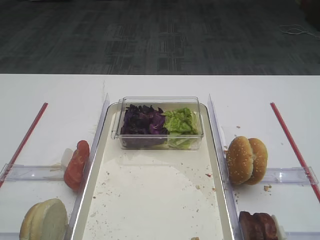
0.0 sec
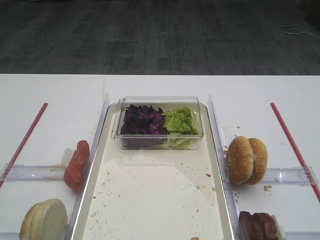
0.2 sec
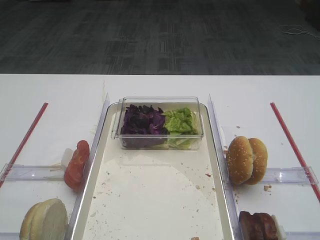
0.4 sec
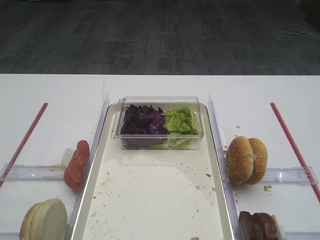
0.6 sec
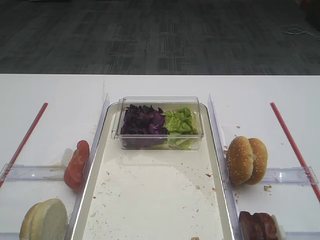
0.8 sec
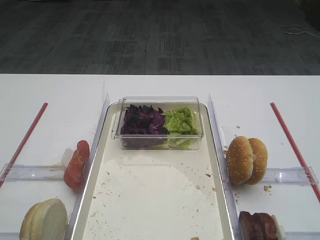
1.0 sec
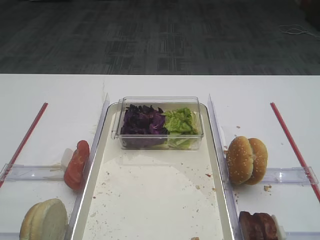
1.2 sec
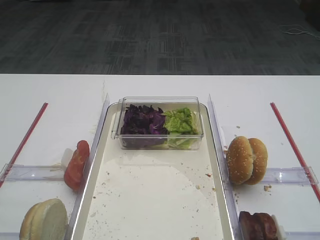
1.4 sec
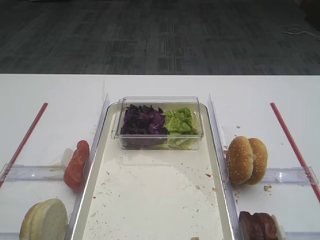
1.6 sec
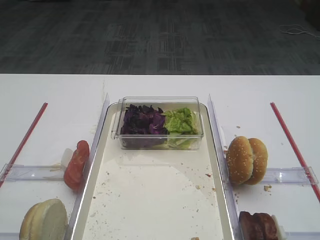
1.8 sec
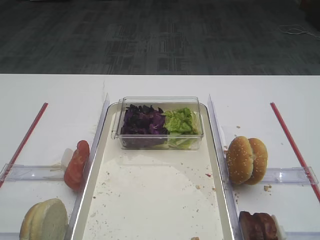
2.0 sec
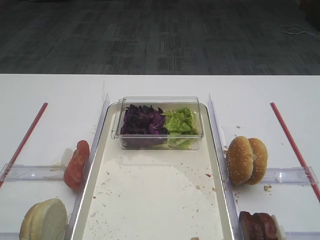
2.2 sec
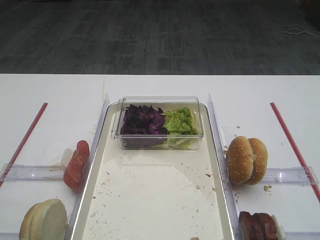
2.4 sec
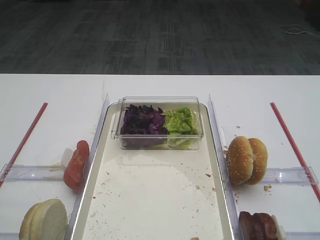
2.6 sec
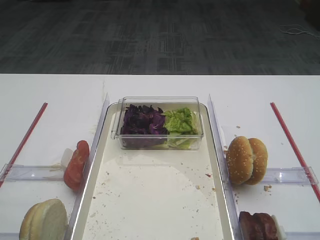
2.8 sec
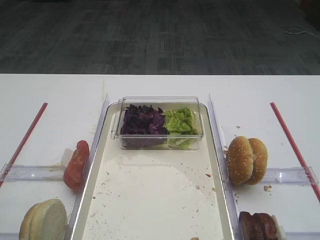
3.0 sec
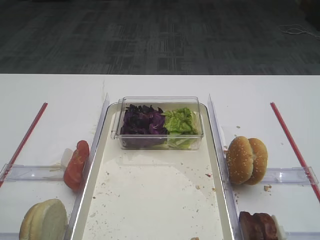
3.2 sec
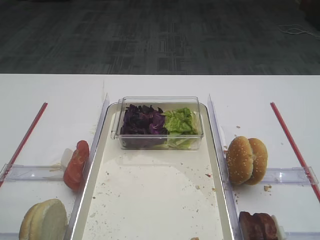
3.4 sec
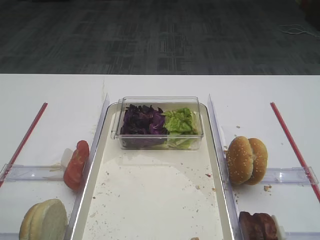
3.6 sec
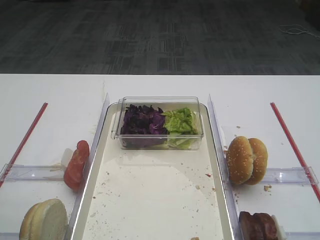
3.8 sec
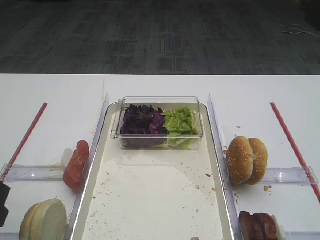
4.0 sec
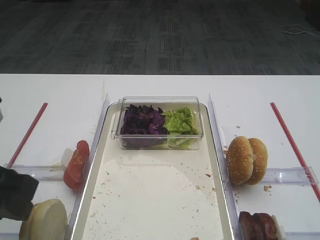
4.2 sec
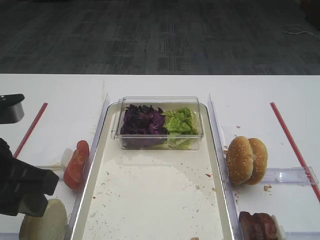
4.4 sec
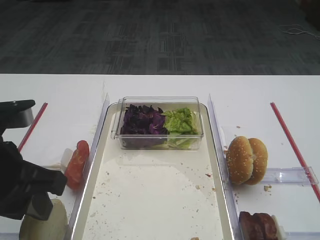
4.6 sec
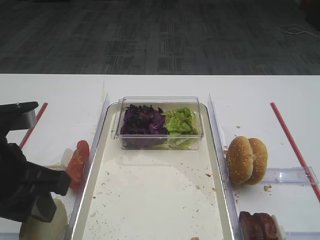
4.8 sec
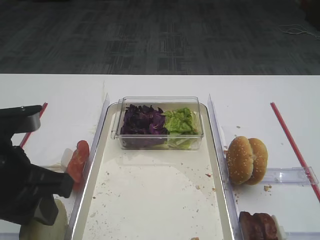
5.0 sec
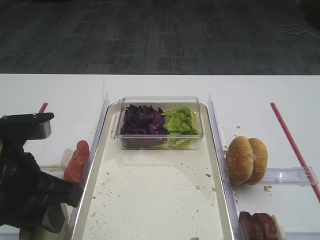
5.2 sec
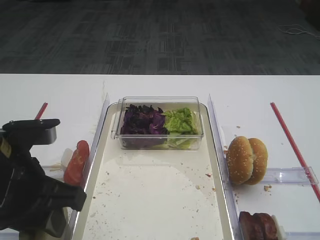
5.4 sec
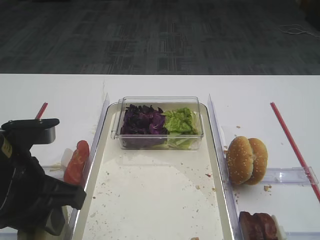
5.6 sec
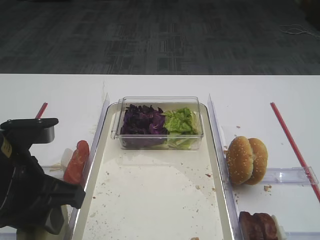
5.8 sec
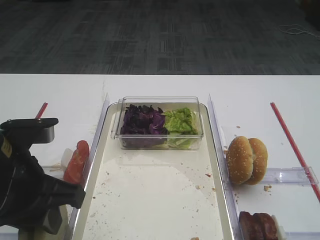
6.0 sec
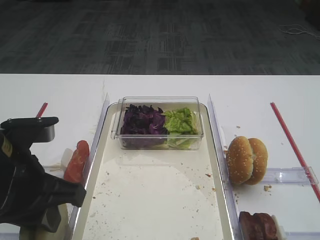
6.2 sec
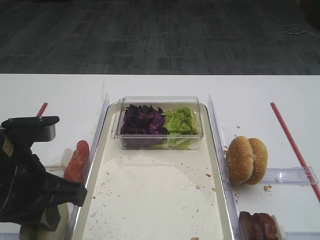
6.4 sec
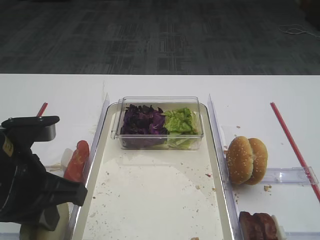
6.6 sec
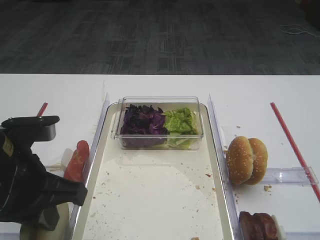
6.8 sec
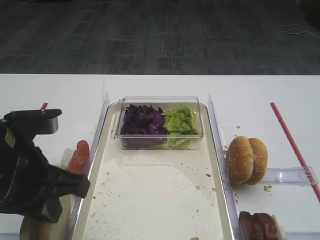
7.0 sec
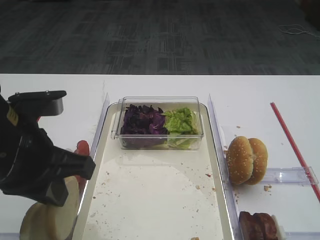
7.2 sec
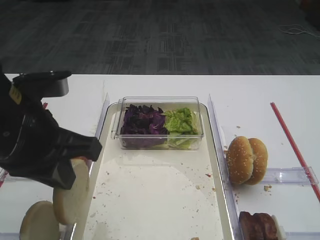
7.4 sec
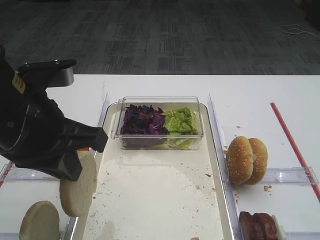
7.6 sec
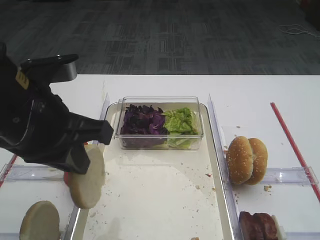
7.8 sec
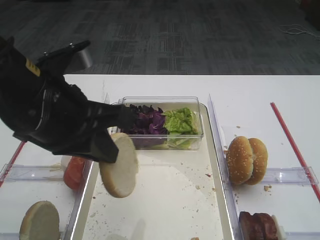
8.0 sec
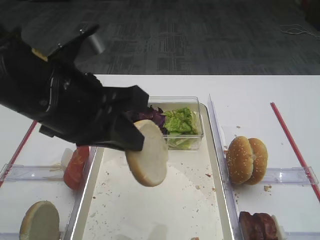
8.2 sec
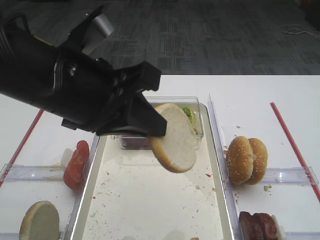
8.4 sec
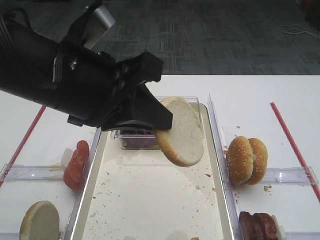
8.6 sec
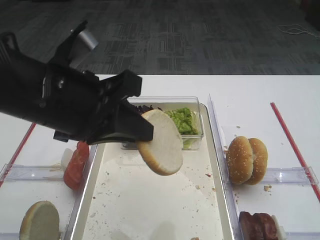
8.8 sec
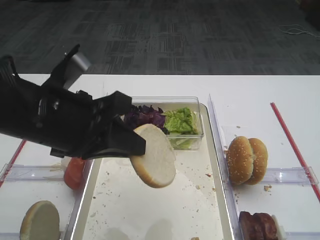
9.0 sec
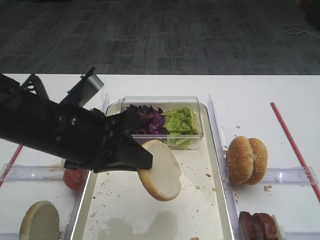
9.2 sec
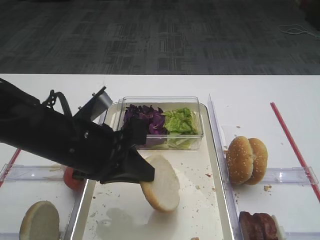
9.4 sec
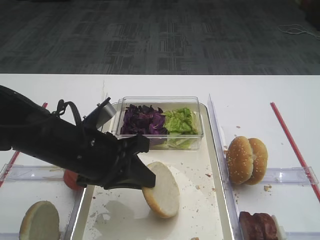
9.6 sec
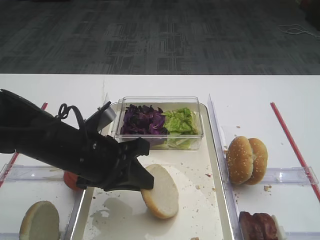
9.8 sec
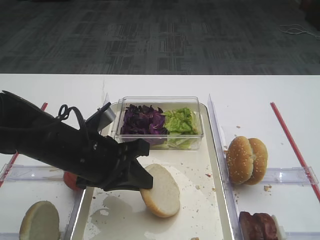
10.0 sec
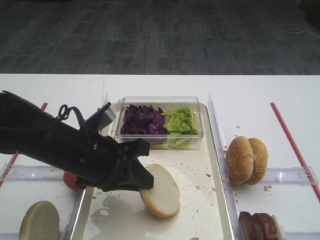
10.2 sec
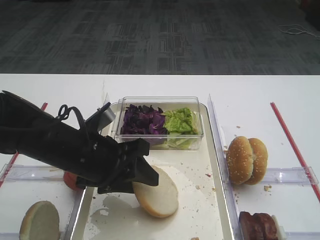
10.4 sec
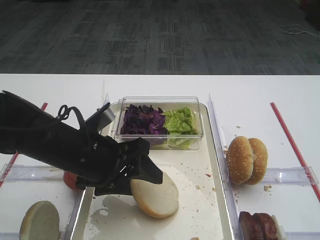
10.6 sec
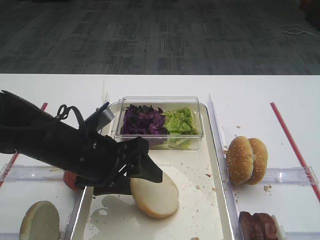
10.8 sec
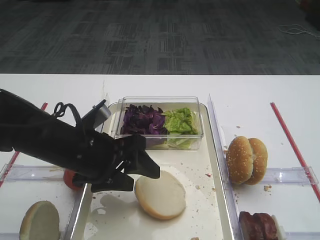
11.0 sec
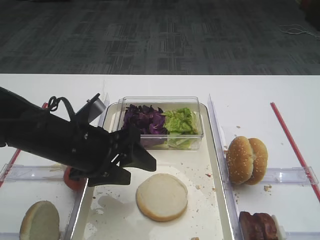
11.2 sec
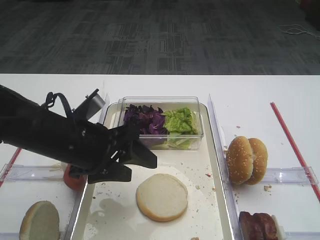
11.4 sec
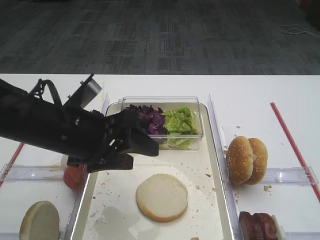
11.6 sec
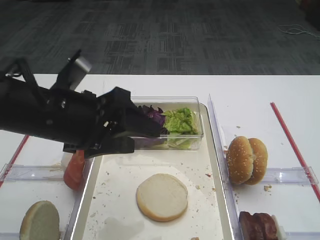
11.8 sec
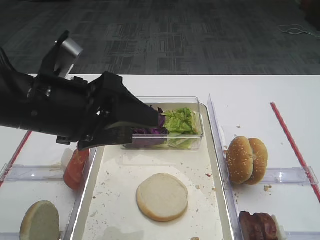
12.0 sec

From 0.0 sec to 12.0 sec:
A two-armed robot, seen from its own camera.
Step, from 0.0 sec to 7.2 sec: Pick up the bread slice with the left gripper.
Step, from 7.6 sec to 11.4 sec: Place the bread slice on the tray with the left gripper.
From 3.0 sec to 4.4 sec: The left gripper is displaced to the right and forward by approximately 10 cm.
From 4.4 sec to 6.0 sec: The grippers make only small movements.
From 6.0 sec to 7.6 sec: The left gripper shifts approximately 5 cm upward, and closes.
From 9.0 sec to 10.4 sec: The left gripper moves downward, about 10 cm, and opens.
From 10.4 sec to 12.0 sec: The left gripper goes about 10 cm upward.

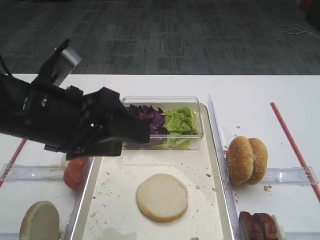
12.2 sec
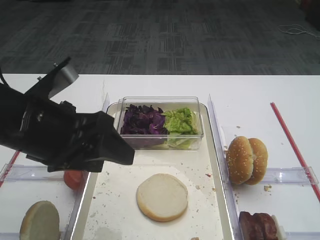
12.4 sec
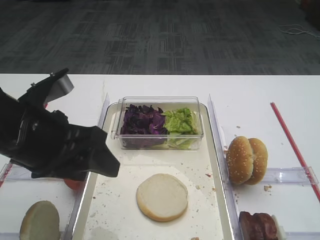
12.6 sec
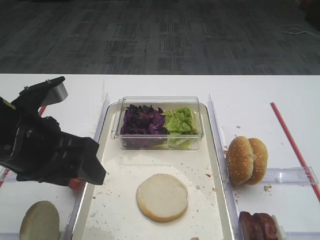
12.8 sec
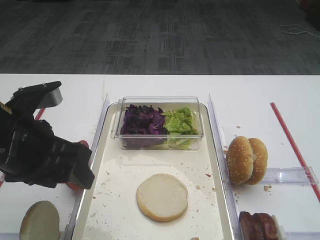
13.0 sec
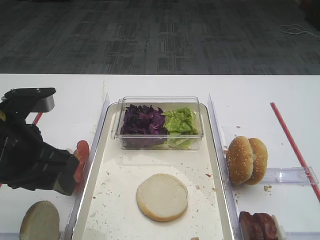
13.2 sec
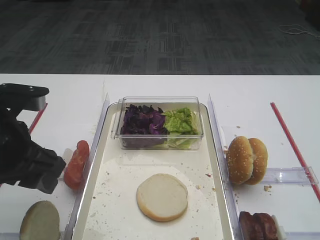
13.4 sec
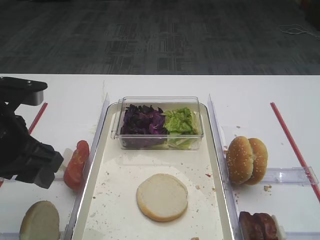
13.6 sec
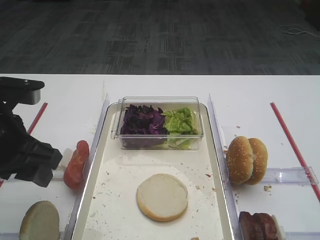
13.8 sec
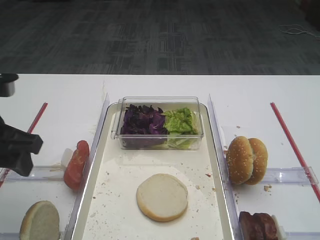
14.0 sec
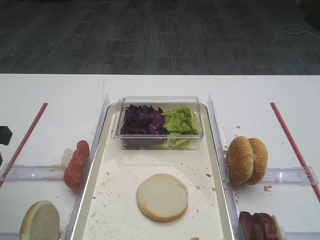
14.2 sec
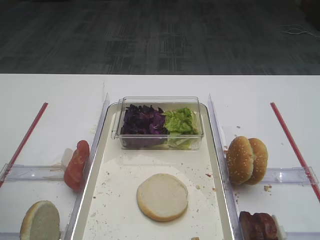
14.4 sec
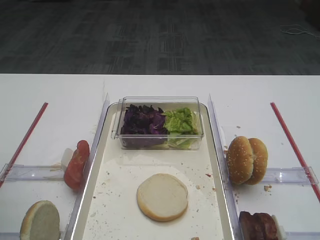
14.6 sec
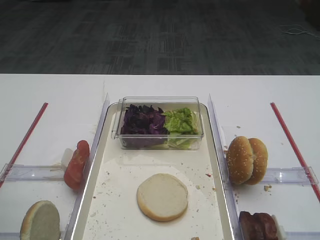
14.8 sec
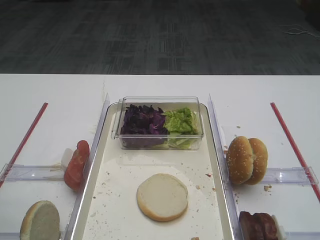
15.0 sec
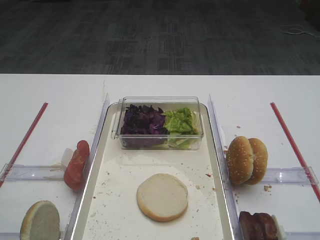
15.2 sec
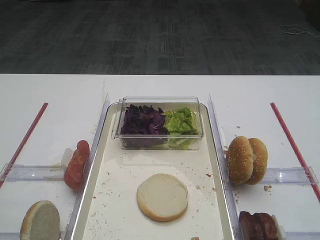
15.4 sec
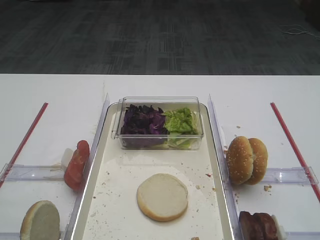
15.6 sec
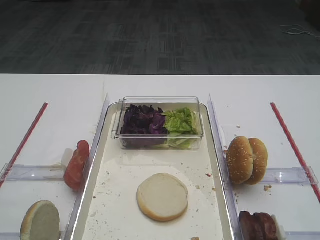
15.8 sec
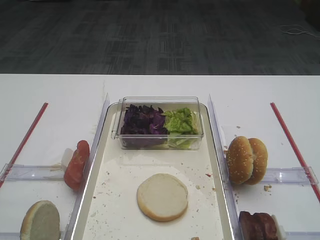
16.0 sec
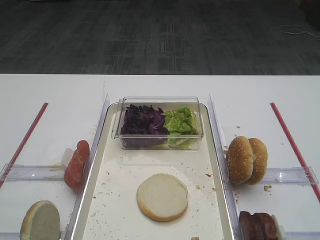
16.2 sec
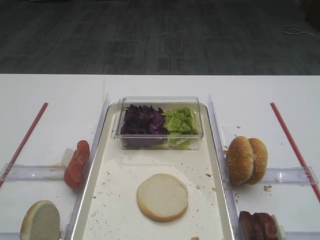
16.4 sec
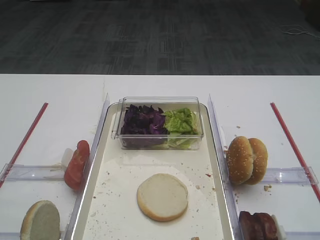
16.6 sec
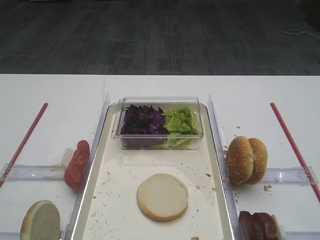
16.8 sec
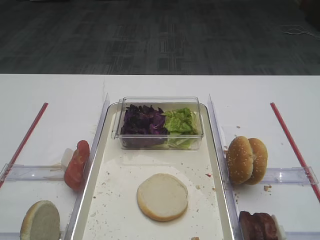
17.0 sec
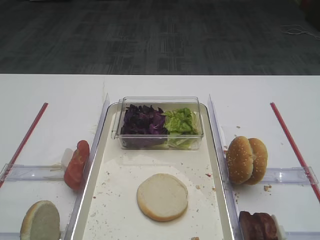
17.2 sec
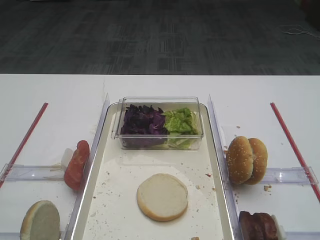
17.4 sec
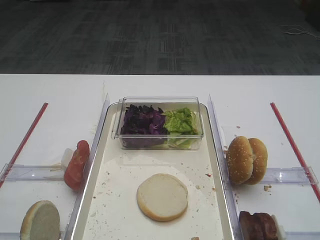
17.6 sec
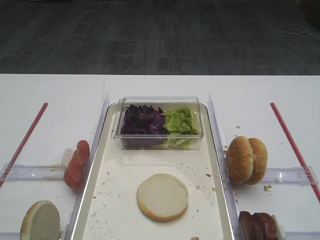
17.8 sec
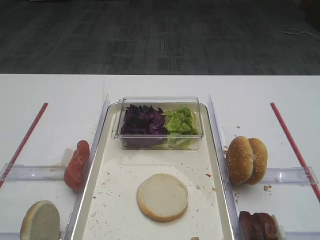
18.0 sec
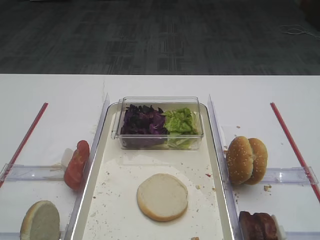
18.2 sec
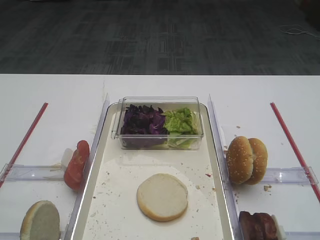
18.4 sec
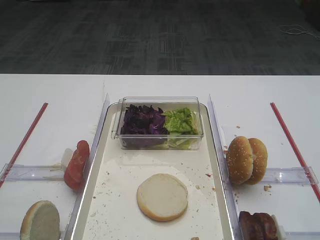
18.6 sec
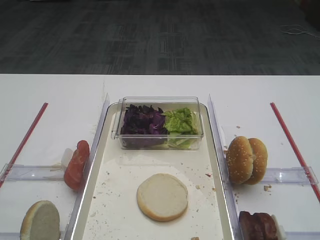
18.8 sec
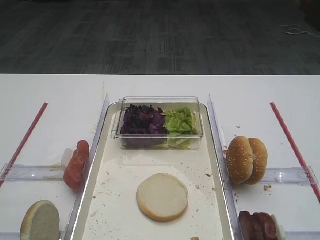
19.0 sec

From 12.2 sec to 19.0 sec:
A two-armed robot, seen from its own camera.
From 12.2 sec to 13.6 sec: The left gripper is displaced to the left by roughly 5 cm.
From 13.6 sec to 15.0 sec: The left gripper travels to the left and backward by about 10 cm.
From 17.6 sec to 19.0 sec: Both grippers stay put.

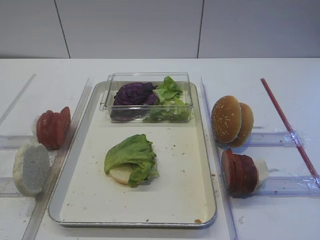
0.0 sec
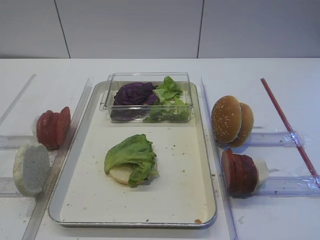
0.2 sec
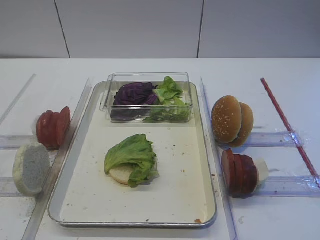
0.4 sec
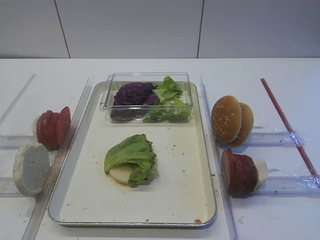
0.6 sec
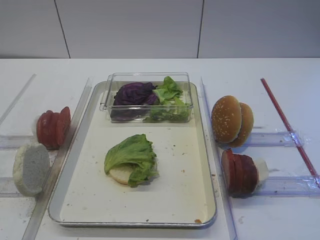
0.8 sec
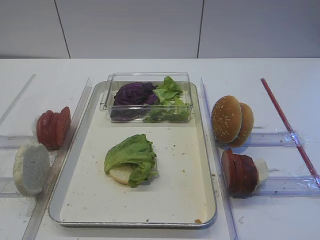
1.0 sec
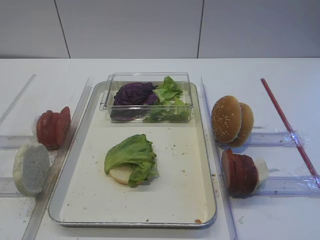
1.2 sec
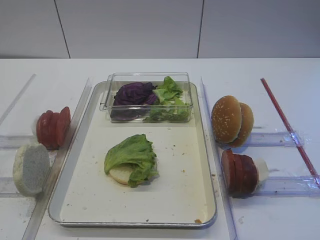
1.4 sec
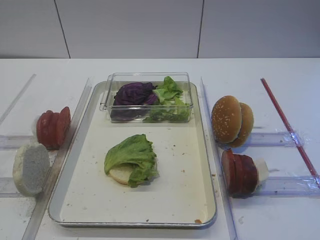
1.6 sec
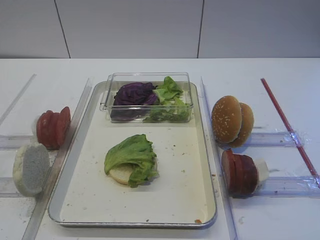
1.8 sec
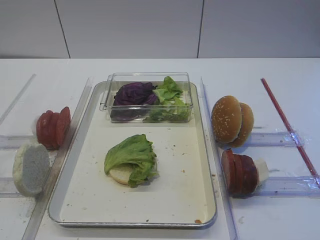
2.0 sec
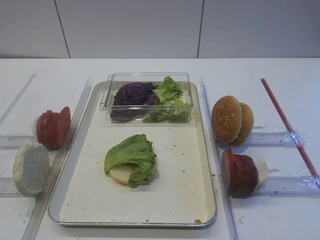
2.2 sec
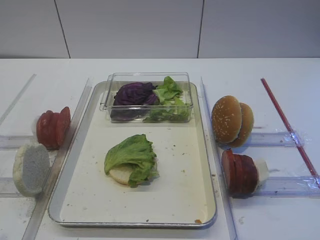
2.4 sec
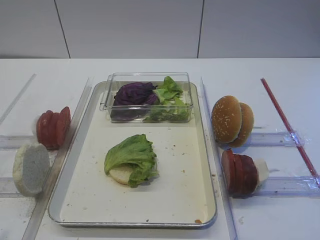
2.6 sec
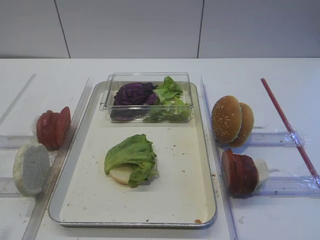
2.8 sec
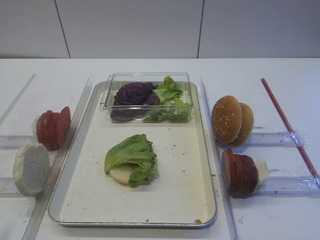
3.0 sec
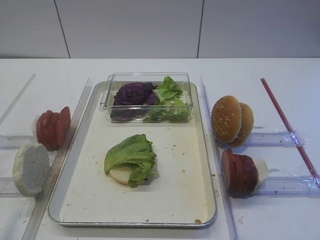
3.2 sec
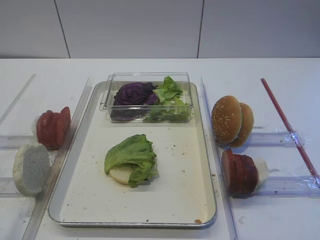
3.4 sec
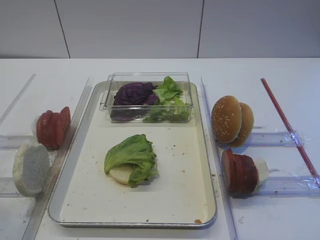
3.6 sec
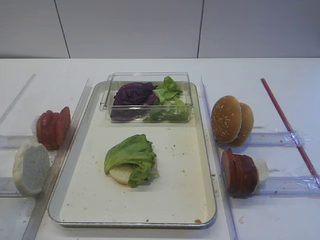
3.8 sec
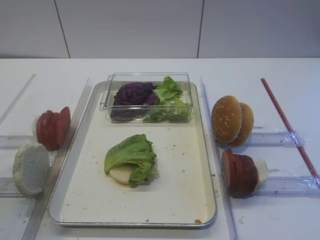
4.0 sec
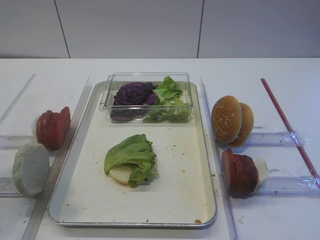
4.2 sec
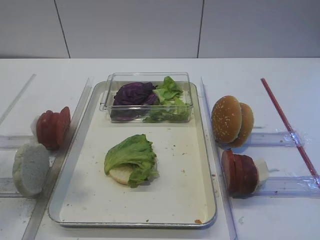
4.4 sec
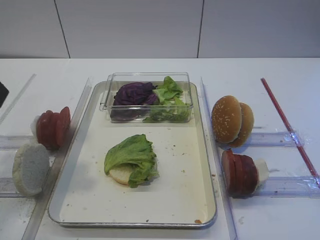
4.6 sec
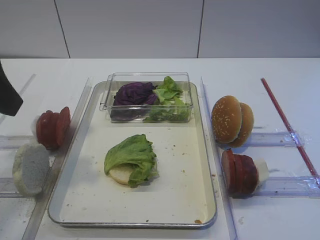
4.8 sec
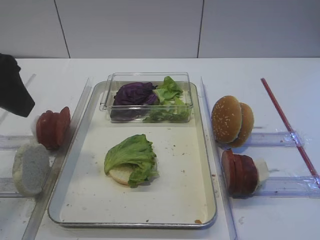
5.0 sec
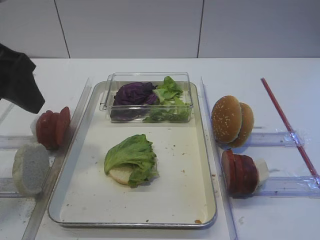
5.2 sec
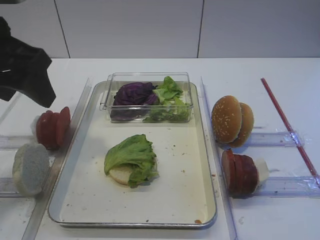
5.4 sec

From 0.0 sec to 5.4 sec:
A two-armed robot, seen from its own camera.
From 2.8 sec to 4.0 sec: The left gripper is displaced forward and upward by approximately 10 cm.
From 4.0 sec to 5.4 sec: The left gripper is displaced forward by approximately 15 cm.
